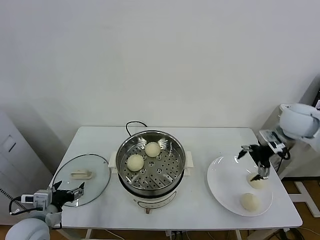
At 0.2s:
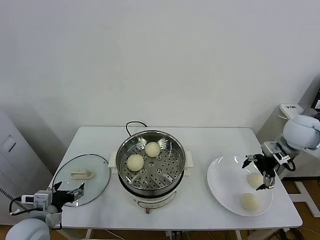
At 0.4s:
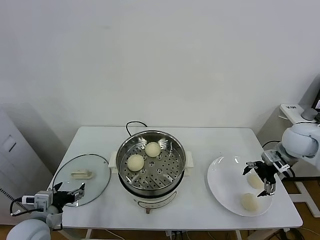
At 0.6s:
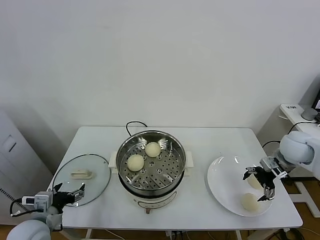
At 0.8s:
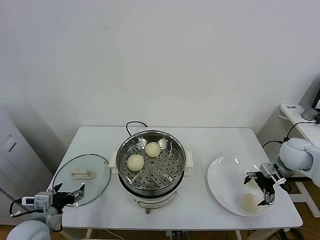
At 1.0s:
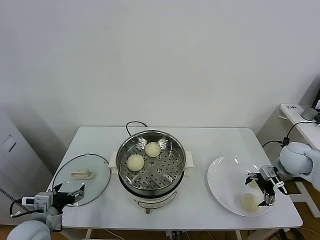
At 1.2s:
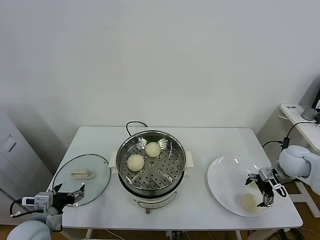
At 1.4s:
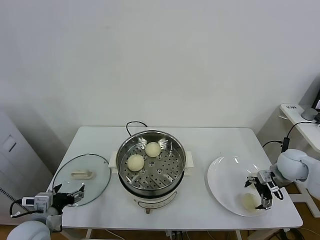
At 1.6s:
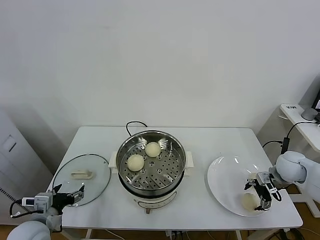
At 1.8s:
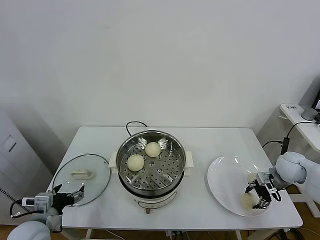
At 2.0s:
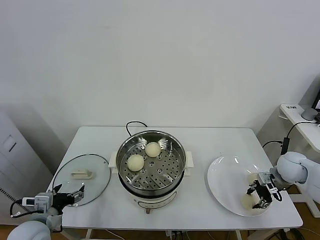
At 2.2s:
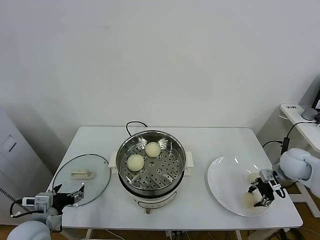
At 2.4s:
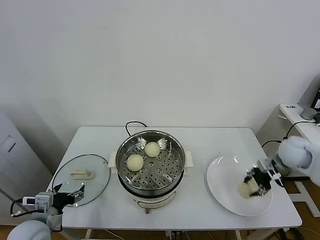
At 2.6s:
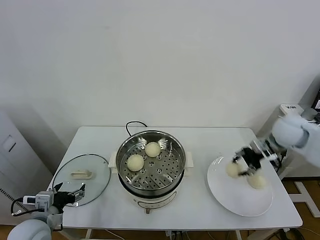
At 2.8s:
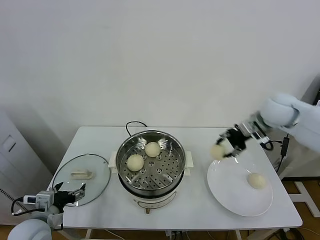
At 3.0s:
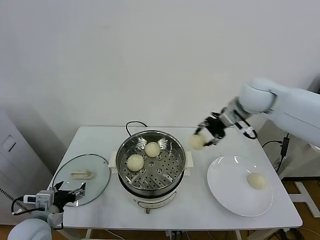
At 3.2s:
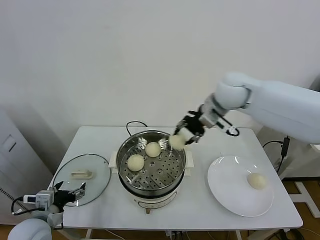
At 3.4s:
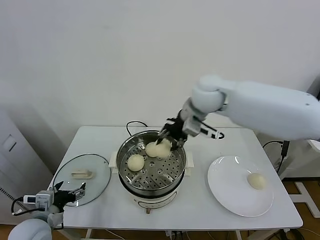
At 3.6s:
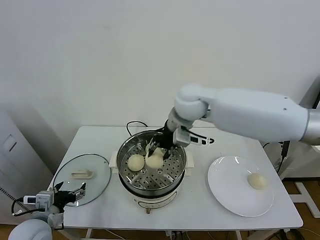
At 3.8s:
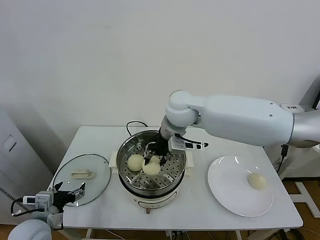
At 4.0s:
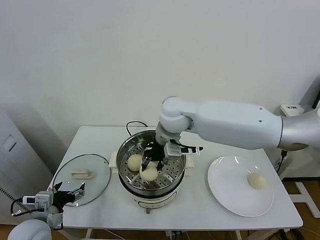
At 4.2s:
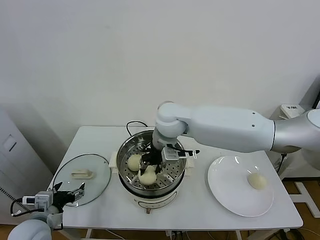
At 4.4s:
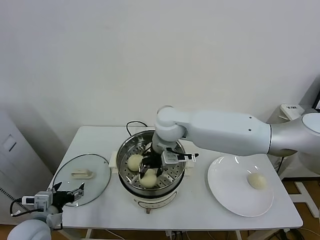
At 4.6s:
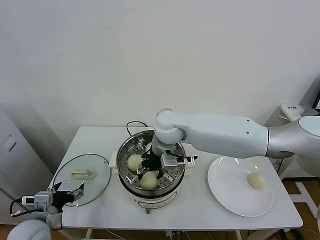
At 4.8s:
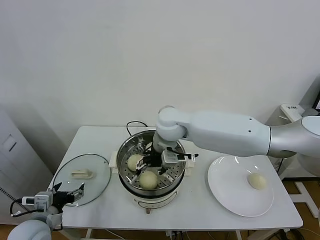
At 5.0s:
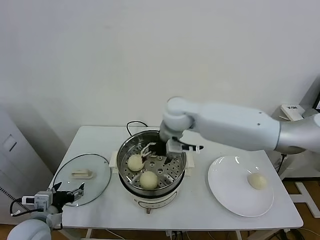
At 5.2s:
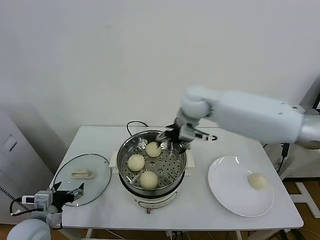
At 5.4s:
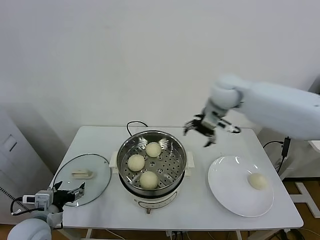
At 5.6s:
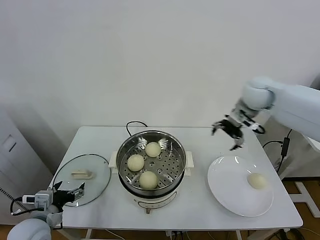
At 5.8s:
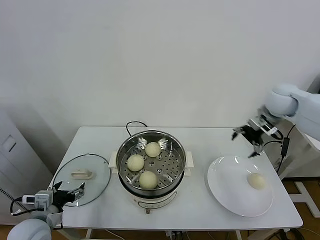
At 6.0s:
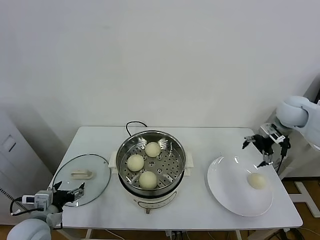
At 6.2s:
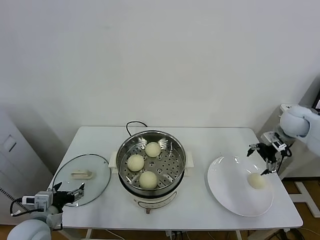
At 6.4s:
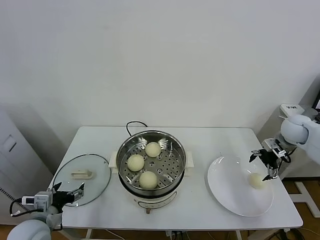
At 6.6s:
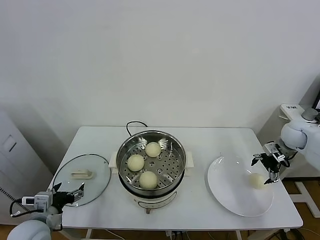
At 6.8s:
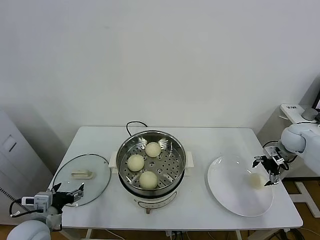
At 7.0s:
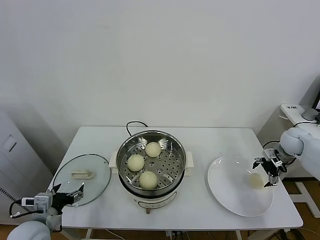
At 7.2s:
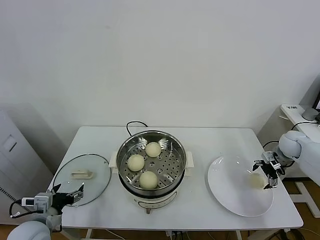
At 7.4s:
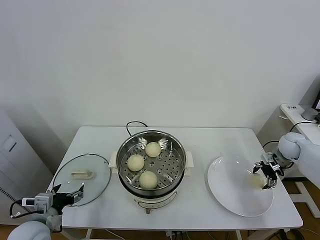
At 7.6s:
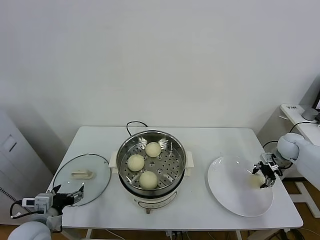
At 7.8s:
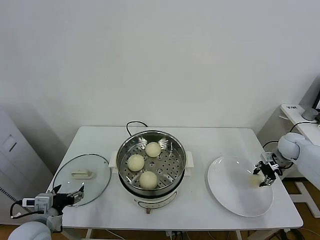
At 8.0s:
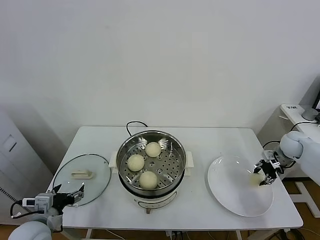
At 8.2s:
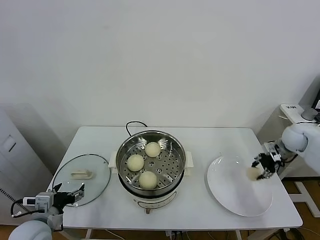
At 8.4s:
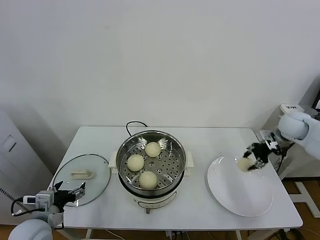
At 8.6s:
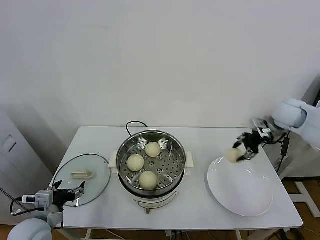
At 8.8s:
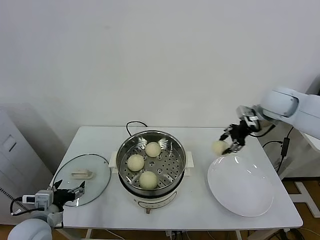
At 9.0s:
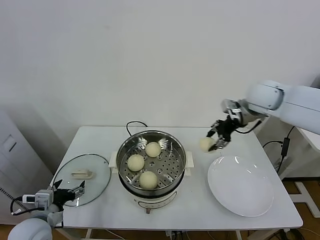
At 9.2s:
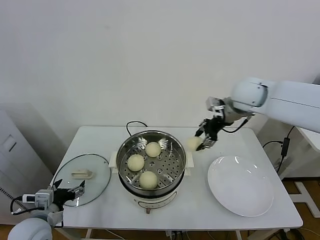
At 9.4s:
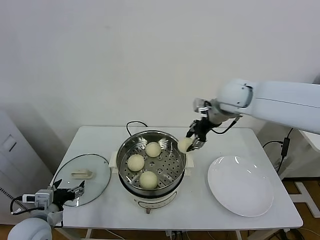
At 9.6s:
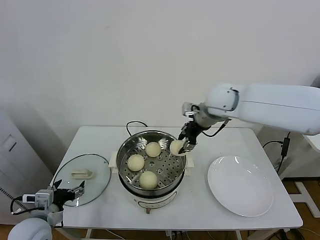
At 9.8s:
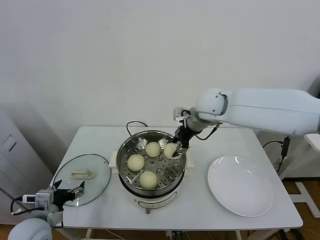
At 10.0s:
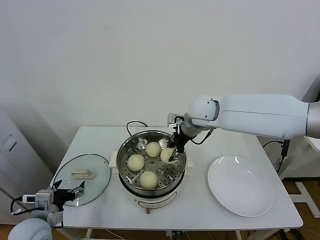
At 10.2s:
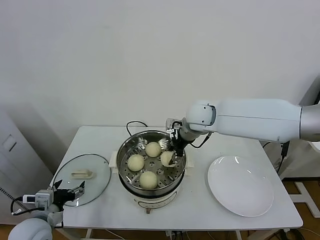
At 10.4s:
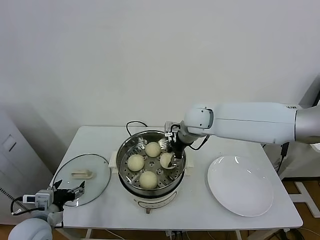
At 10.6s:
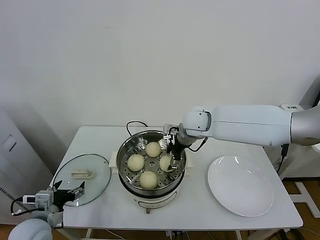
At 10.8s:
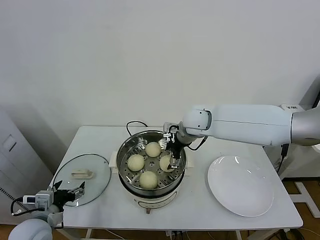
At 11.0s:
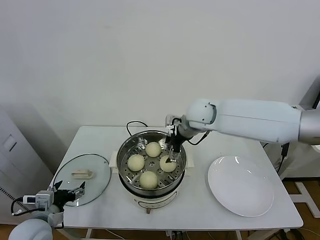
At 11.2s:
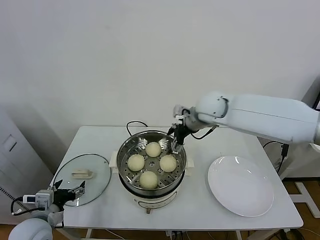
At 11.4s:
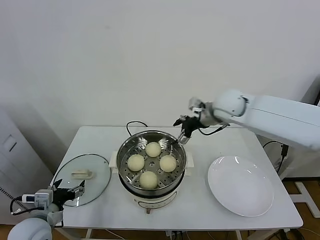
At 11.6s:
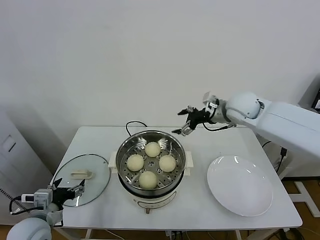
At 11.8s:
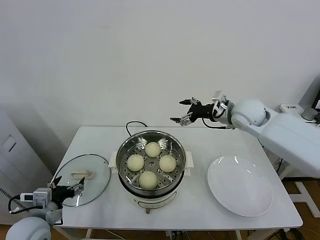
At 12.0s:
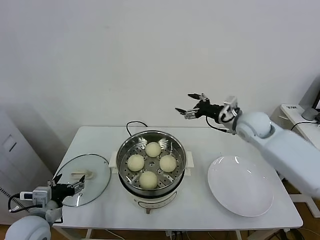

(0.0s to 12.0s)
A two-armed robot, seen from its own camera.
Task of the whole recording: take steamed baozi put them in steamer.
Step, 0.0s - 1.8s: Grasp the baozi in the plate with right gripper.
Step, 2.2s - 4.8s: Place the baozi on the steamer with right gripper.
Step, 5.0s - 7.6s: Grasp the baozi in the plate with right gripper.
Step, 7.8s - 10.8s: Place the baozi on the steamer with right gripper.
0.0s - 1.6s: The right gripper moves downward, approximately 15 cm.
1.6s - 3.0s: The right gripper moves upward and to the left, approximately 30 cm, and closes its fingers.
3.0s - 4.4s: The right gripper moves to the left and downward, about 25 cm.
4.4s - 6.0s: The right gripper is displaced to the right by about 40 cm, and opens.
6.0s - 7.6s: The right gripper travels downward and to the right by about 15 cm, and closes.
7.6s - 9.0s: The right gripper goes some 30 cm upward and to the left.
9.0s - 10.4s: The right gripper moves to the left and downward, roughly 20 cm.
10.4s - 12.0s: The right gripper goes some 15 cm to the right, and opens its fingers.

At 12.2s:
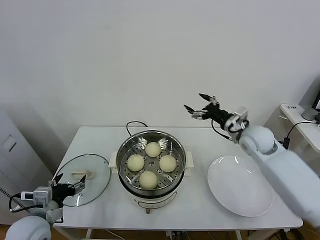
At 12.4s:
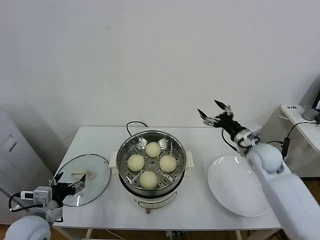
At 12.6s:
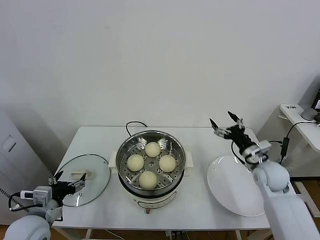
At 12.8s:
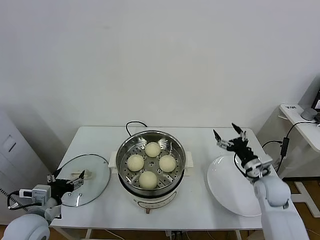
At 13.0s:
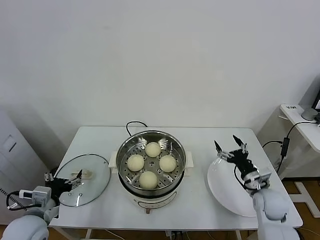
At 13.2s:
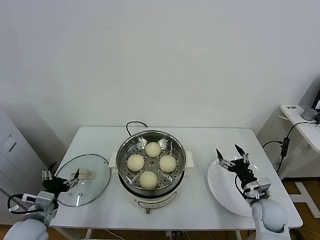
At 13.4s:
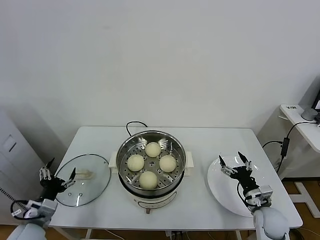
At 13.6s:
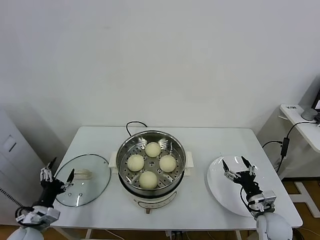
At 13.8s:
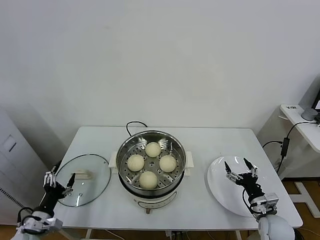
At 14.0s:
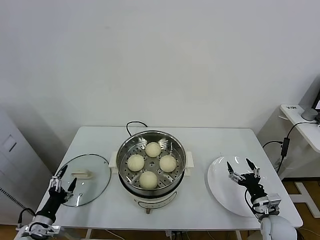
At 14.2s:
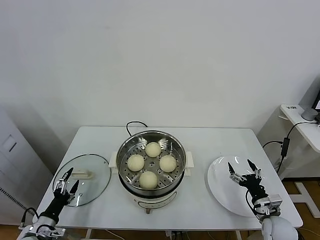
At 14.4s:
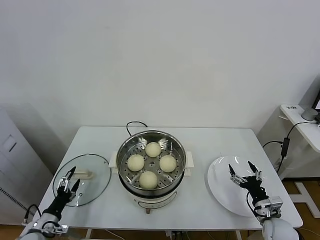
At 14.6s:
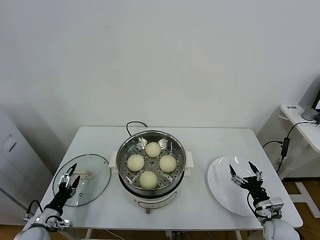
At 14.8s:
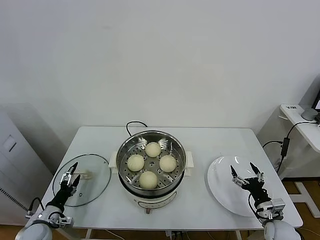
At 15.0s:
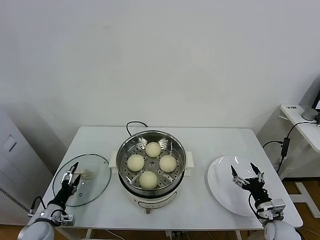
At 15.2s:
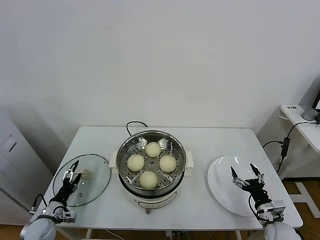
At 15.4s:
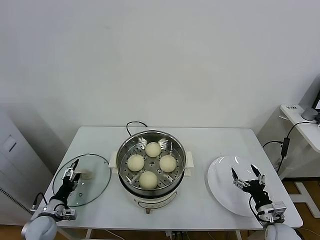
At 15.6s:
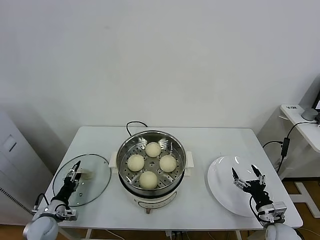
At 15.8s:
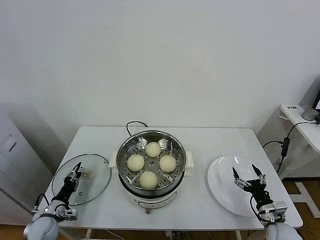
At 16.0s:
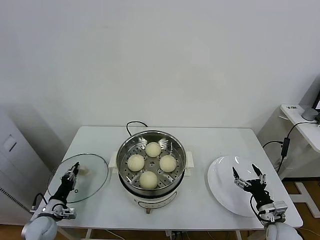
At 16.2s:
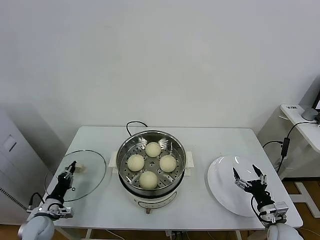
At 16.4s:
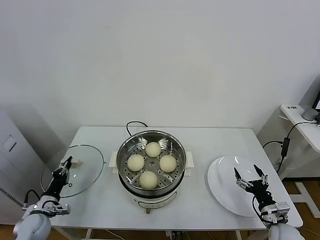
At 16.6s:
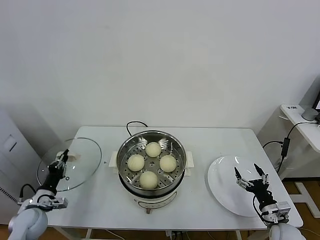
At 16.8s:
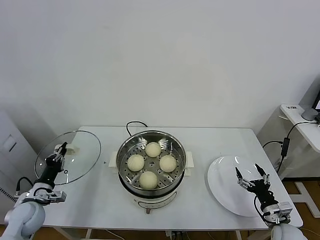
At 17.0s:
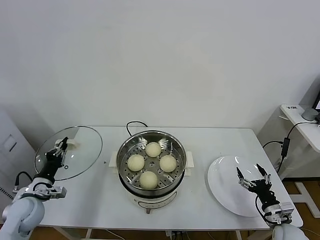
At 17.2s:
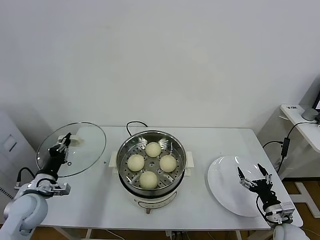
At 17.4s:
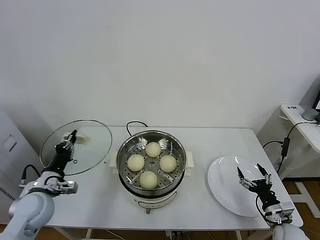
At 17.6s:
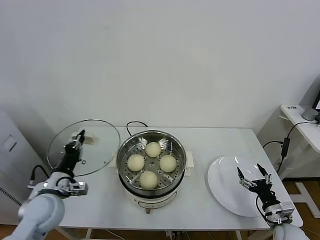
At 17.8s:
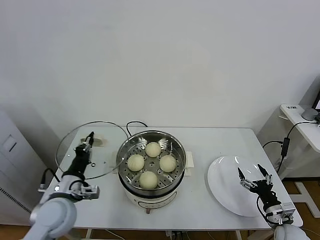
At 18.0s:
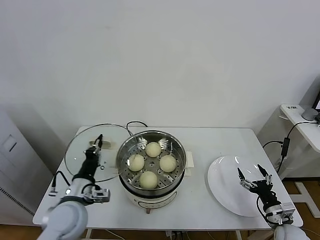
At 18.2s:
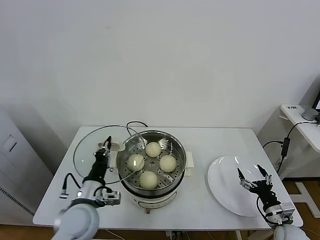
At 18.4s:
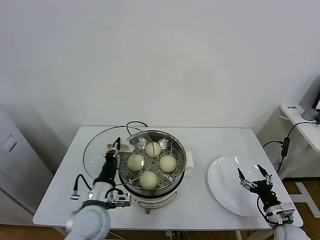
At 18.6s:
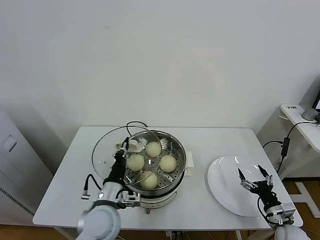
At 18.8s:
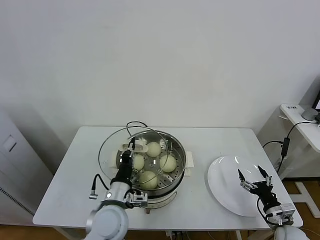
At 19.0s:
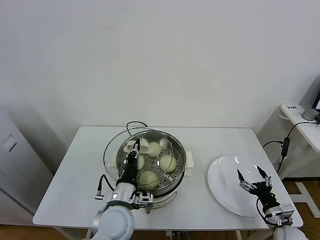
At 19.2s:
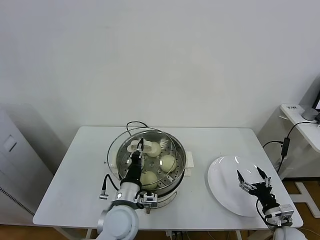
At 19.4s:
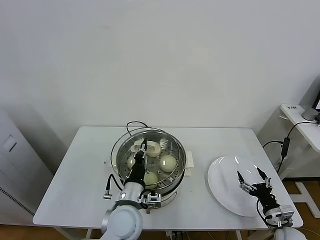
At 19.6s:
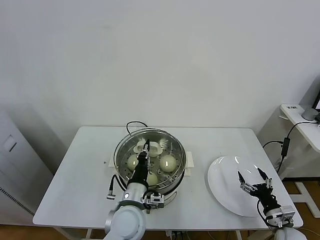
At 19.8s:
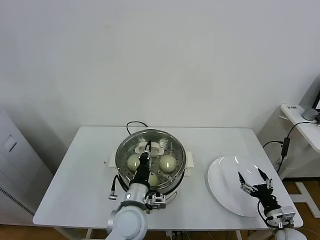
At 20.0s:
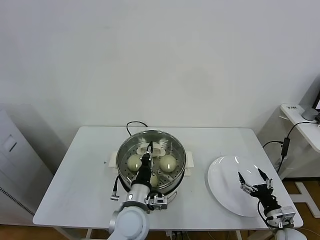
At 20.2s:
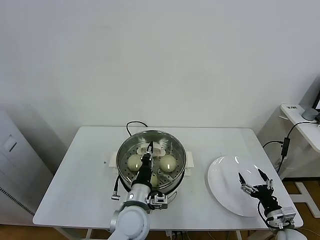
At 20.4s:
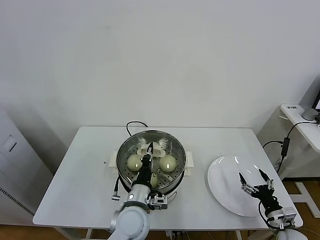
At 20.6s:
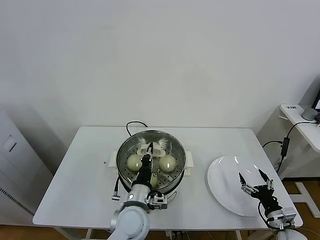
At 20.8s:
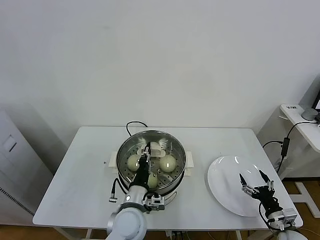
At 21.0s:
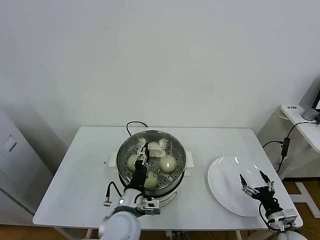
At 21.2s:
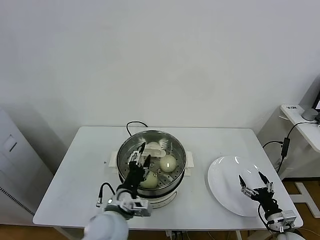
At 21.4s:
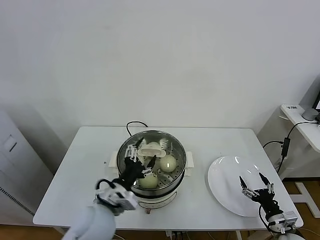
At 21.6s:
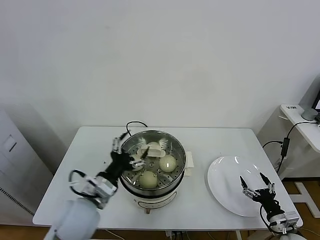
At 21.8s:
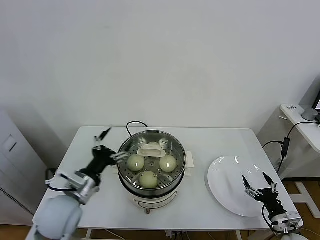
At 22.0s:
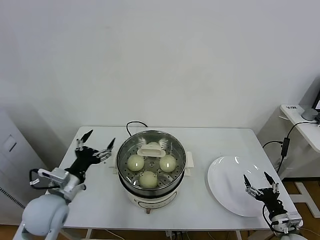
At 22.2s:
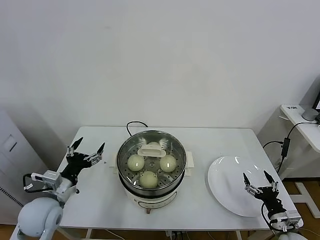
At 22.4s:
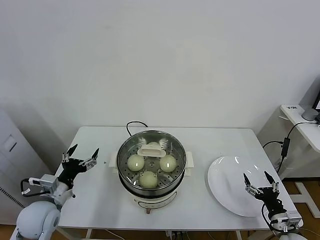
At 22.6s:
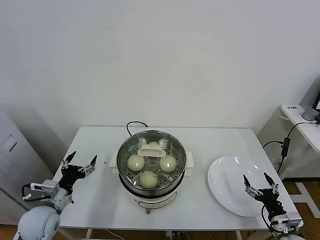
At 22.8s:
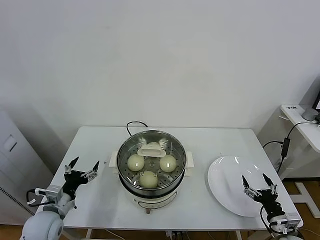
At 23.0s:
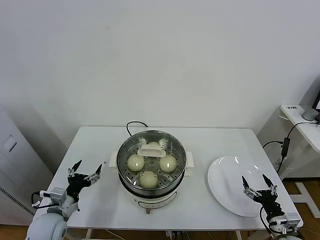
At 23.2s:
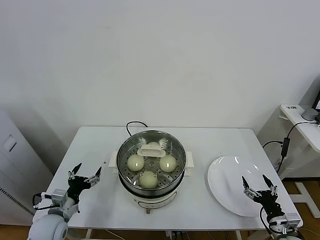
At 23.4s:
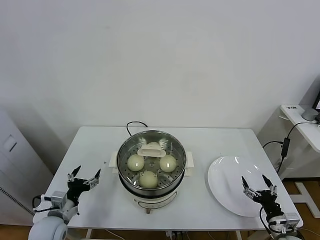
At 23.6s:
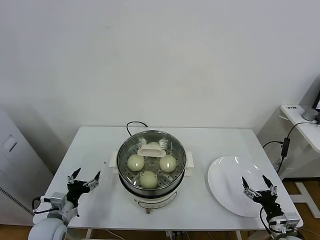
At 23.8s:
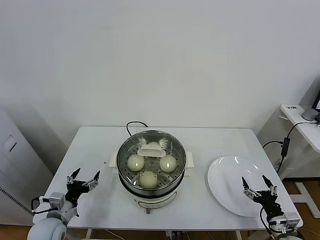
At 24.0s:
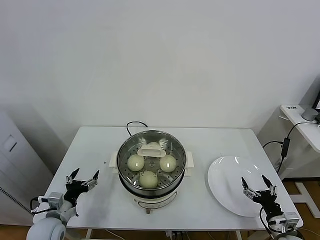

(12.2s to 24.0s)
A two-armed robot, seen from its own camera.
Task of the whole recording: take steamed baozi put them in steamer.
Step, 12.2s - 16.2s: Grasp the pot lid with left gripper.
Step, 16.4s - 21.2s: Place the pot lid on the steamer with left gripper.
12.2s - 13.6s: The right gripper moves downward and backward, about 30 cm, while the left gripper shifts about 10 cm downward.
13.6s - 15.2s: The left gripper moves downward and forward, some 10 cm.
15.2s - 16.6s: The left gripper moves upward, roughly 5 cm, and closes.
16.6s - 18.2s: The left gripper travels to the right and upward by roughly 25 cm.
18.2s - 19.6s: The left gripper heads to the right, covering some 15 cm.
19.6s - 21.0s: The left gripper opens up.
21.0s - 22.6s: The left gripper travels to the left by approximately 25 cm, and opens its fingers.
22.6s - 24.0s: The left gripper is displaced downward by roughly 5 cm.
